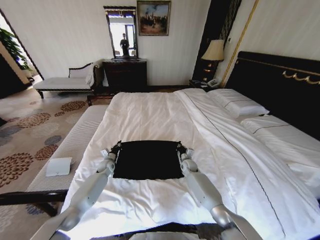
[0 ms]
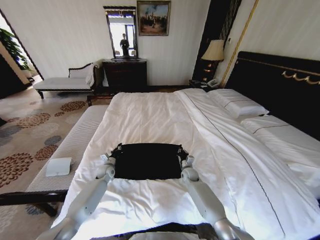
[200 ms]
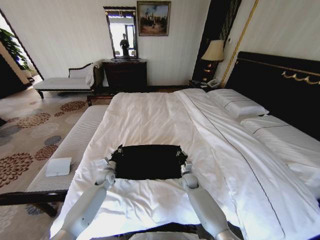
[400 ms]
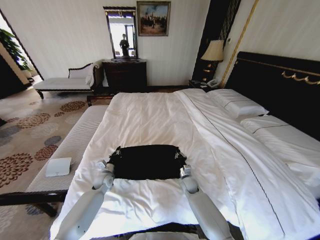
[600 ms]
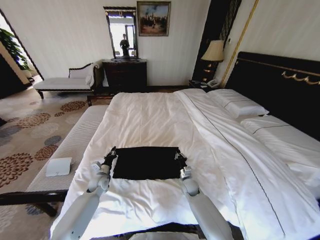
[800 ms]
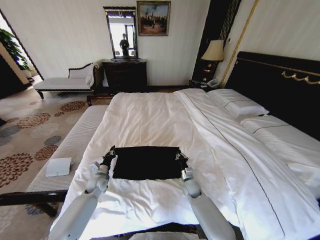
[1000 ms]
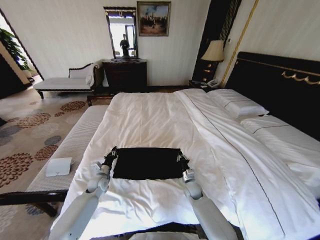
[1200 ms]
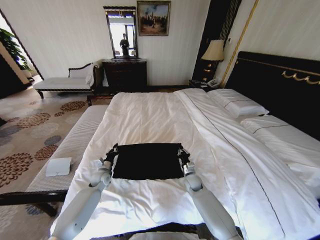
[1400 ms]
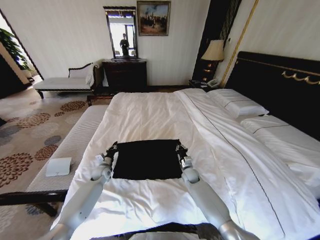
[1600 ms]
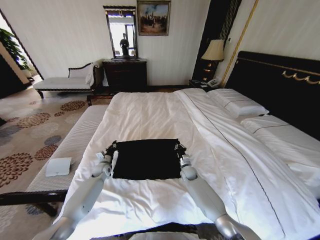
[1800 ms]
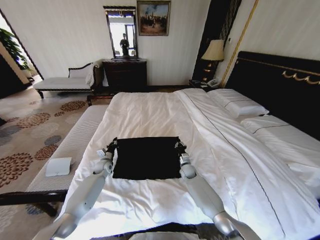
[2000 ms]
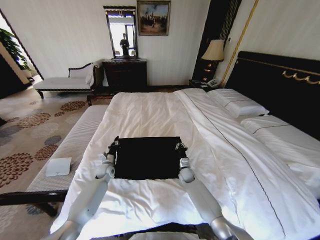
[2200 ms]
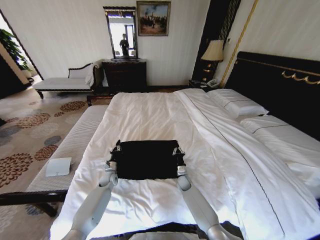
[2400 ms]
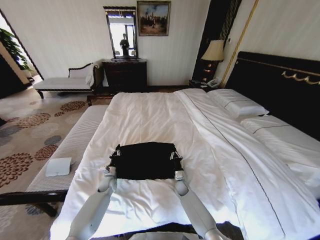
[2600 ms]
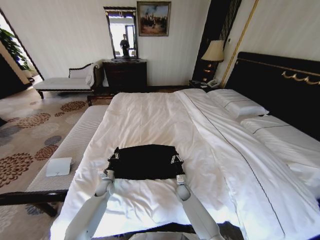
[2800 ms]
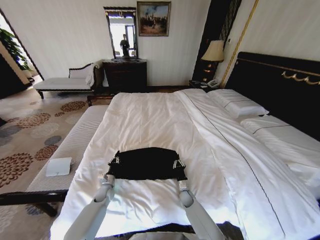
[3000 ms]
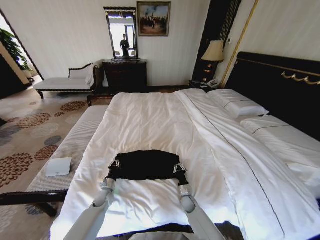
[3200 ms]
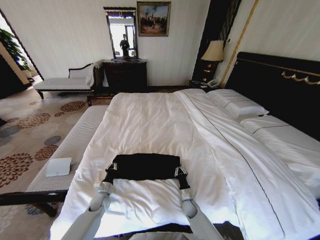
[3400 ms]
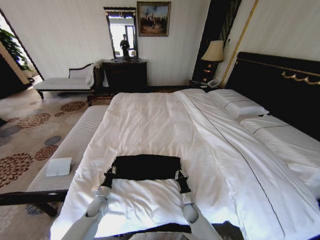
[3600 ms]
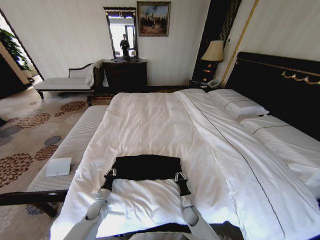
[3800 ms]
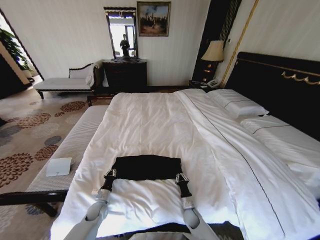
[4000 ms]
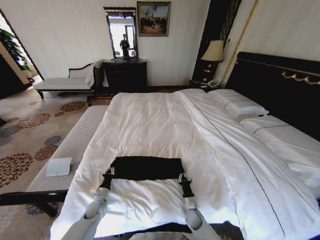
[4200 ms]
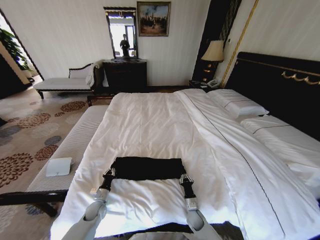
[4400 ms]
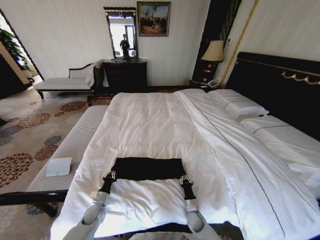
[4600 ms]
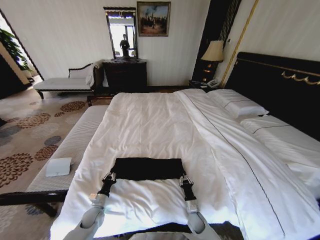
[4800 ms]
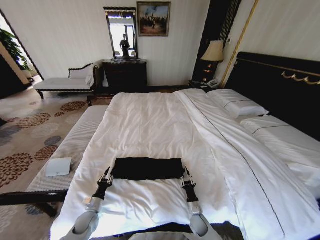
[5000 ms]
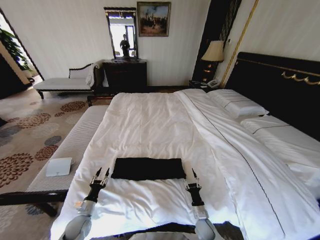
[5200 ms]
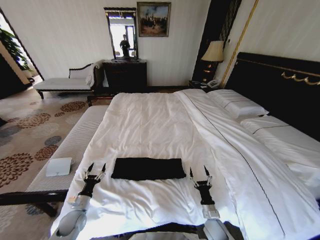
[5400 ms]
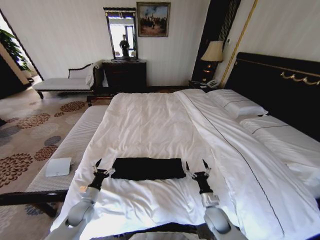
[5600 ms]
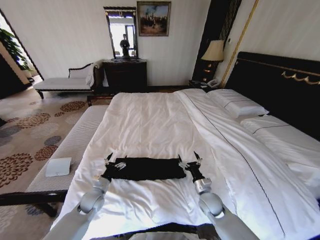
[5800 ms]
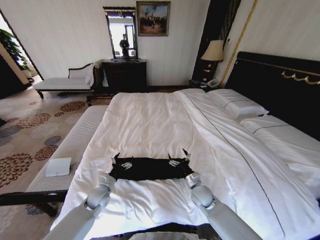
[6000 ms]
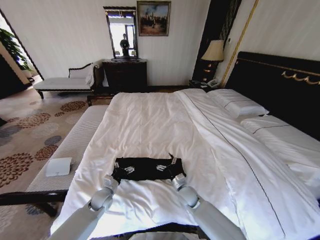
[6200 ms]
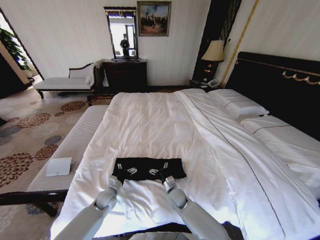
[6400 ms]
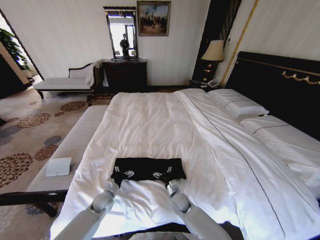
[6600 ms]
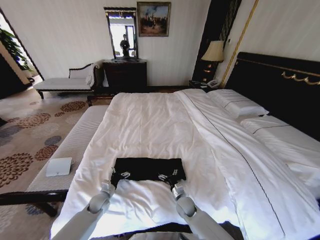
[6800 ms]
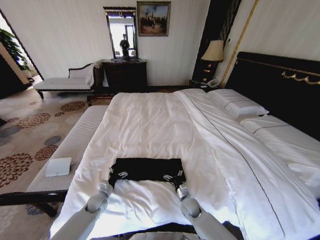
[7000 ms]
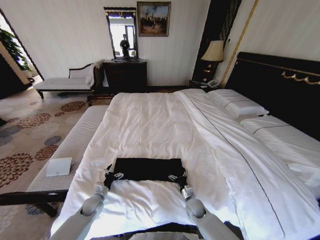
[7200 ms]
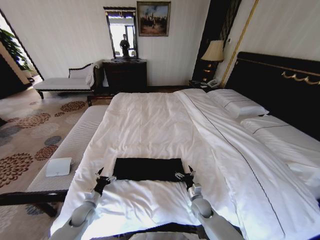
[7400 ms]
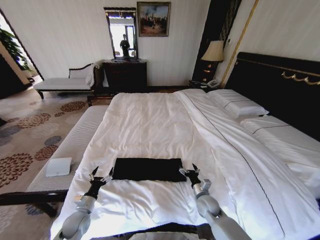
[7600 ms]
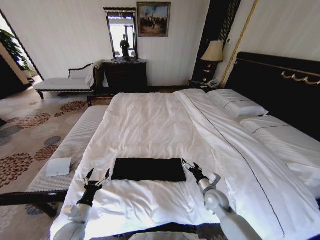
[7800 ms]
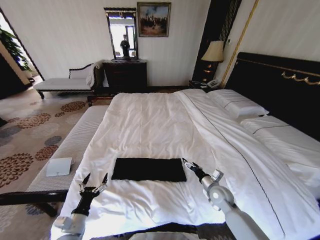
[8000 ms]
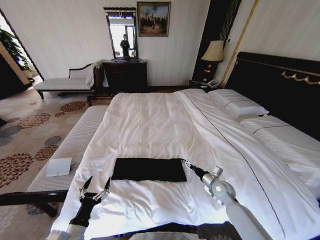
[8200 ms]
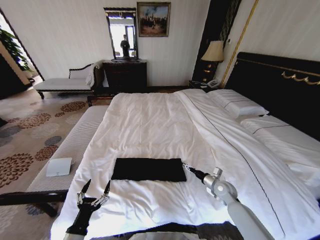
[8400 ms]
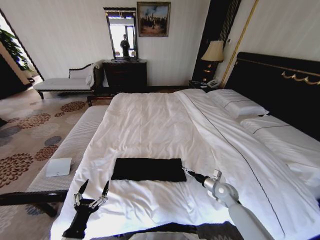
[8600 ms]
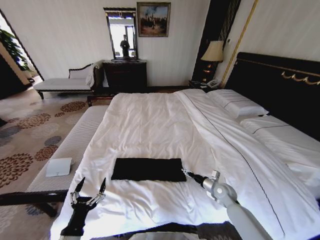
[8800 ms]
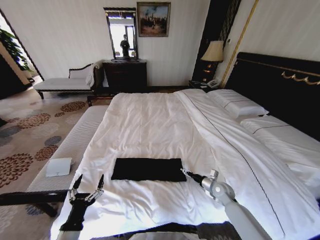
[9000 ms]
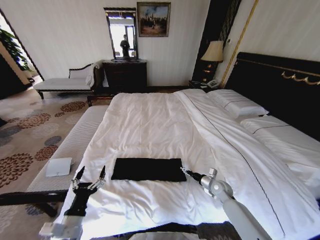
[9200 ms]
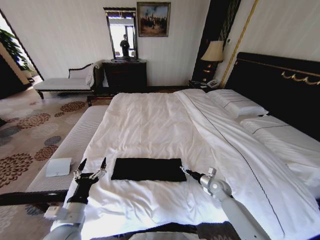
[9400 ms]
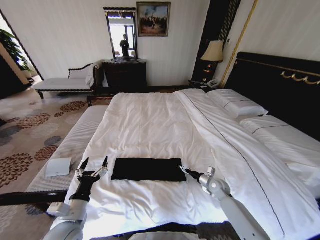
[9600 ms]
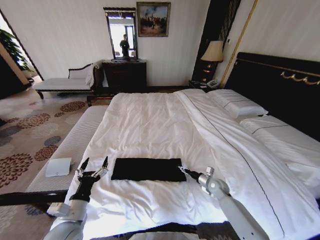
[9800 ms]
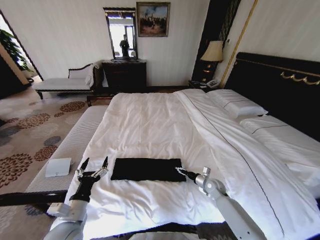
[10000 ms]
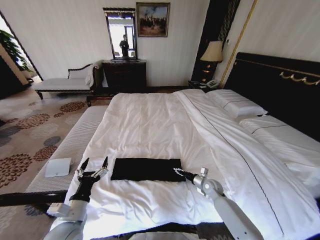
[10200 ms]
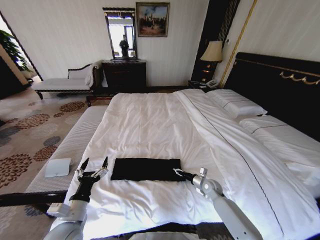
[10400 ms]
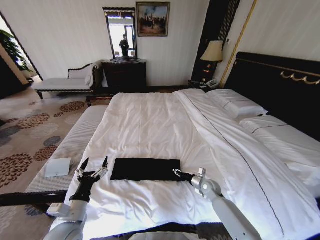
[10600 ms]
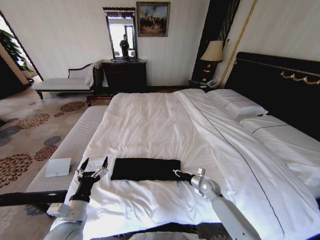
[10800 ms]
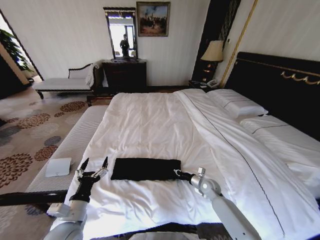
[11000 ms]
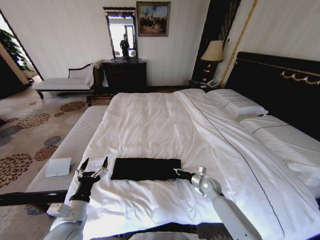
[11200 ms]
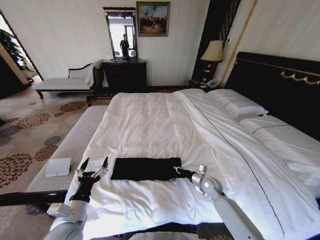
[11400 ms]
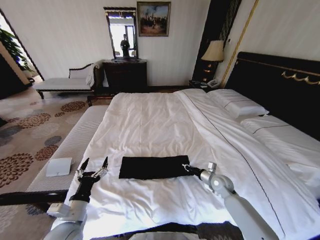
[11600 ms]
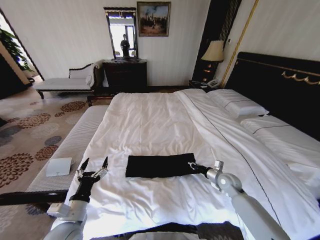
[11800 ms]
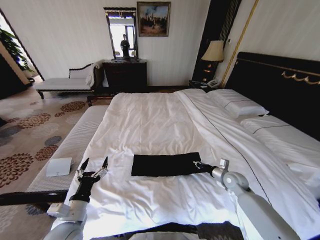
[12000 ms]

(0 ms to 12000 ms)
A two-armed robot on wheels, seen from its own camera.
Task of the whole recording: Fold the clothes on the bed.
0 ms - 1600 ms: The two grippers go approximately 5 cm backward.
1600 ms - 3000 ms: The right gripper shifts roughly 15 cm downward and backward. Meanwhile the left gripper goes some 10 cm backward and downward.
3000 ms - 4400 ms: Both grippers move backward, some 10 cm.
4400 ms - 6000 ms: The left gripper goes about 10 cm upward, and opens up, while the right gripper goes approximately 20 cm upward, and opens.
6000 ms - 7600 ms: The left gripper is displaced backward and to the left by about 10 cm. The right gripper travels to the left and back again, about 10 cm each way.
7600 ms - 9000 ms: The right gripper moves to the right and forward, about 10 cm. The left gripper goes roughly 15 cm backward and upward.
9000 ms - 10400 ms: The left gripper shifts approximately 5 cm forward. The right gripper ends up about 5 cm from where it was.
10400 ms - 12000 ms: The right gripper moves upward and to the right, some 15 cm, and closes its fingers.

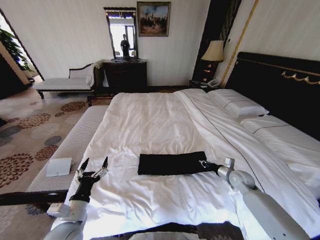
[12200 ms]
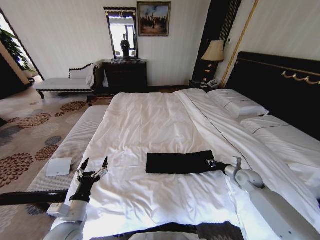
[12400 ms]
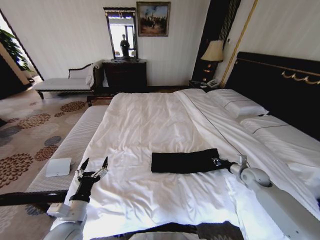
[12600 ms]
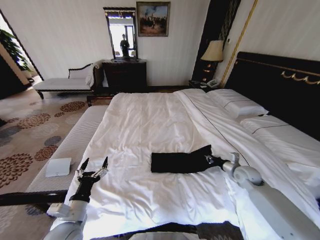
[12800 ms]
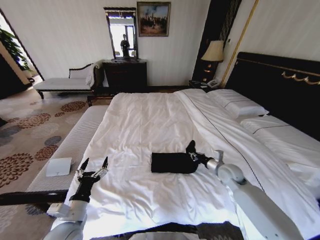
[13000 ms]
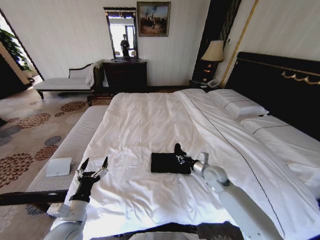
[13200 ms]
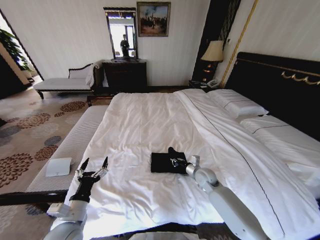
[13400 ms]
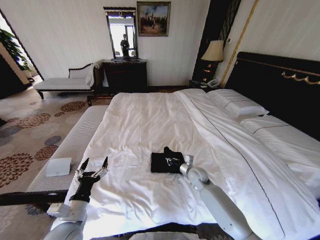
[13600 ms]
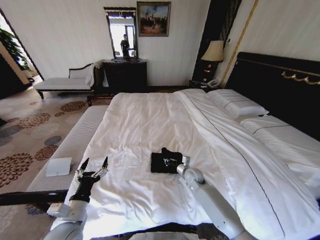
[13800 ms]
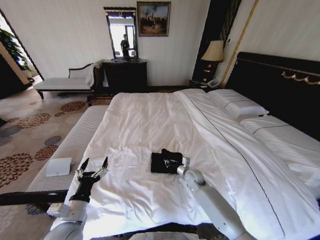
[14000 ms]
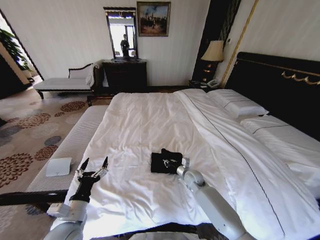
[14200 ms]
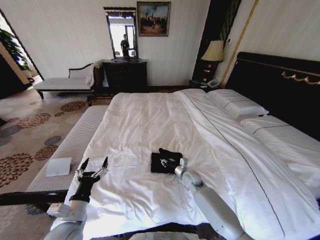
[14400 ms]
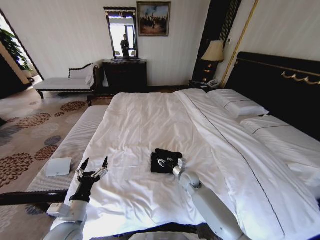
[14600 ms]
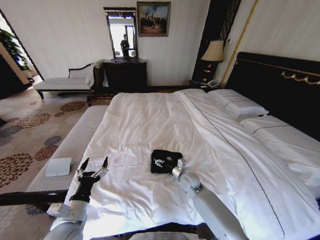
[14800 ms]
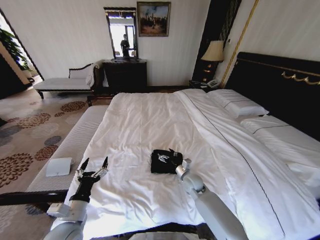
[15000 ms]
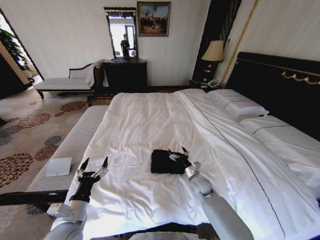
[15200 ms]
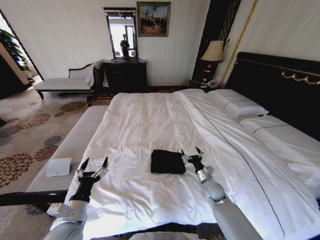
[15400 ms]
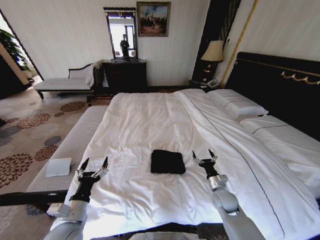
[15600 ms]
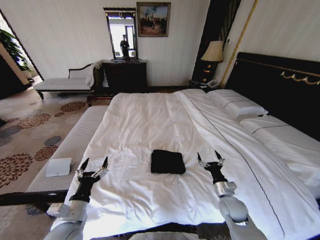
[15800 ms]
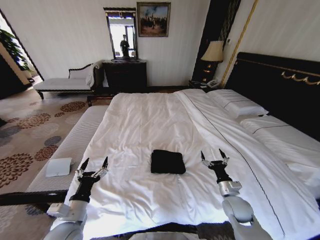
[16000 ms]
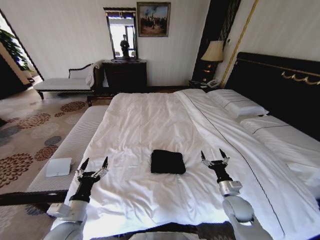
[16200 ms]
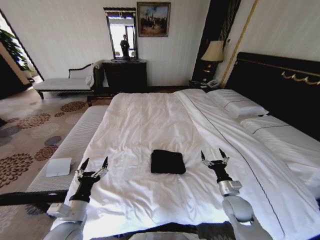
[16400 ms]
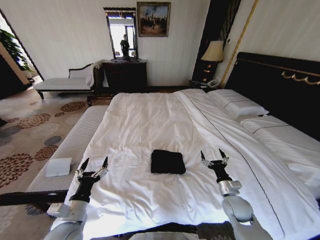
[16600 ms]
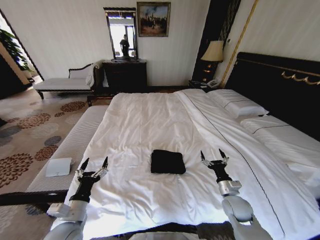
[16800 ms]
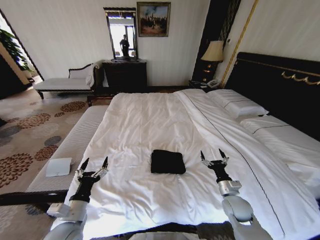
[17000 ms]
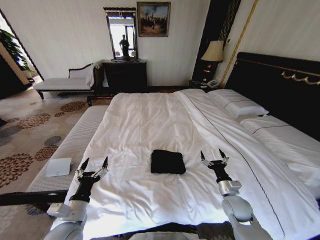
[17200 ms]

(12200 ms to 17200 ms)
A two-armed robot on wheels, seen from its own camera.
Task of the whole recording: Fold the clothes on the bed.
12200 ms - 13800 ms: The right gripper is displaced to the left by approximately 20 cm.
13800 ms - 15600 ms: The right gripper moves backward and to the right, some 15 cm, and opens its fingers.
15600 ms - 17200 ms: There are only small adjustments of the grippers.
